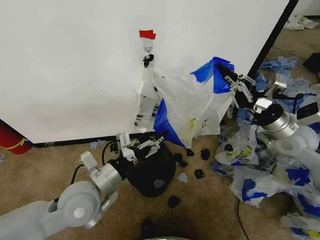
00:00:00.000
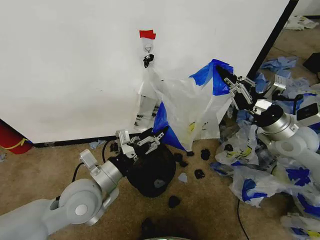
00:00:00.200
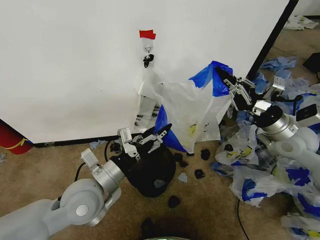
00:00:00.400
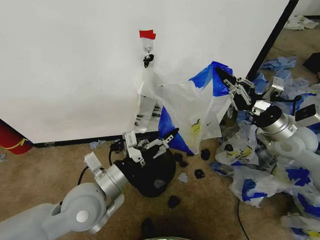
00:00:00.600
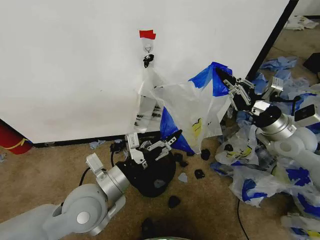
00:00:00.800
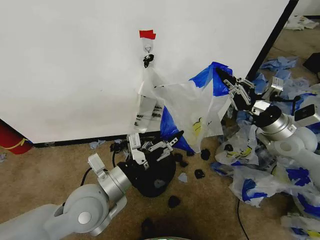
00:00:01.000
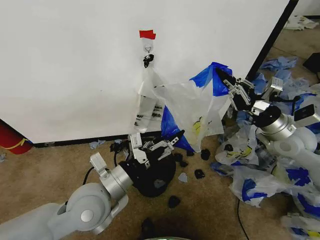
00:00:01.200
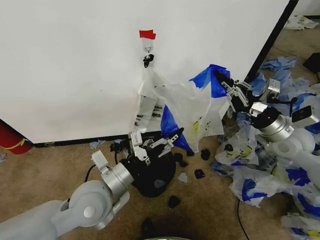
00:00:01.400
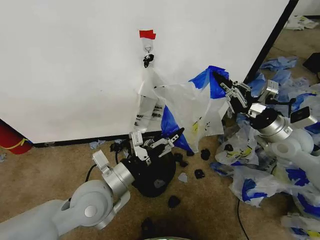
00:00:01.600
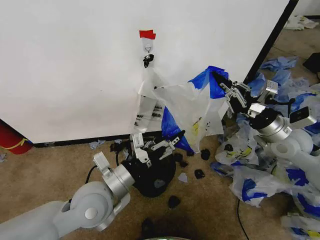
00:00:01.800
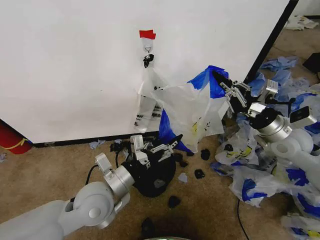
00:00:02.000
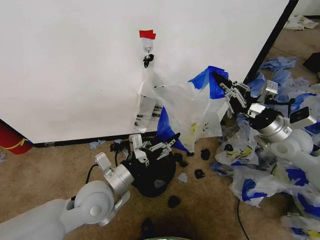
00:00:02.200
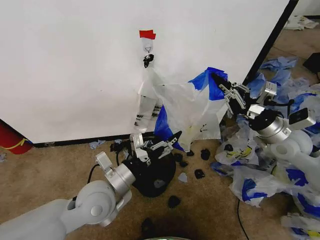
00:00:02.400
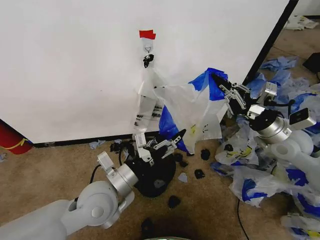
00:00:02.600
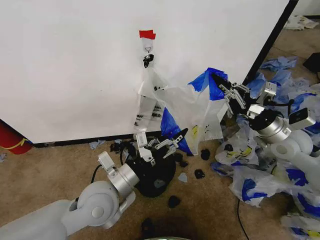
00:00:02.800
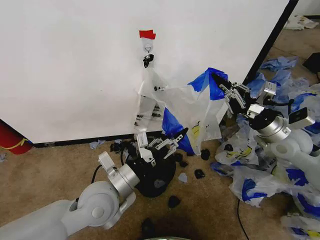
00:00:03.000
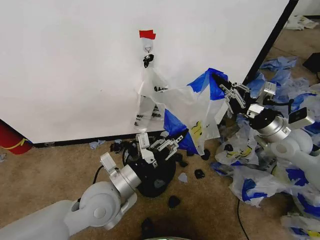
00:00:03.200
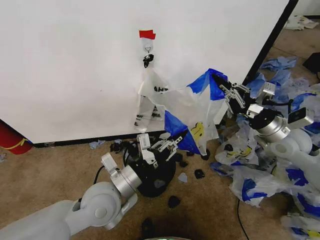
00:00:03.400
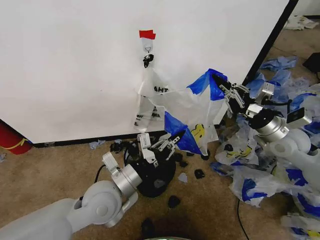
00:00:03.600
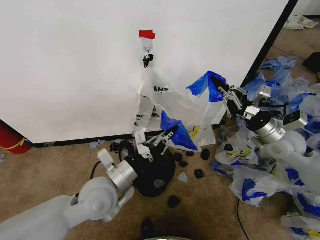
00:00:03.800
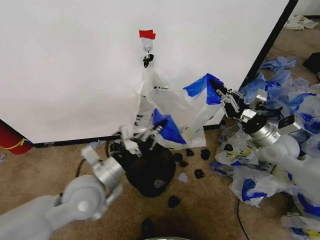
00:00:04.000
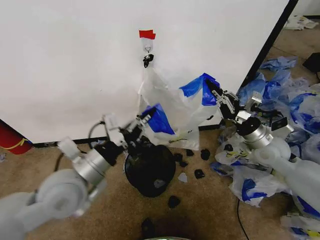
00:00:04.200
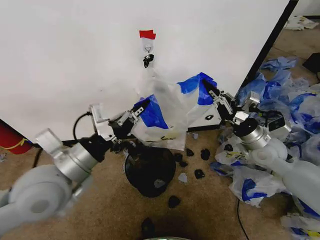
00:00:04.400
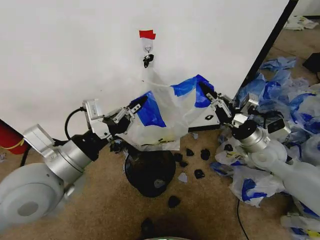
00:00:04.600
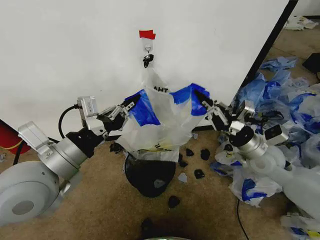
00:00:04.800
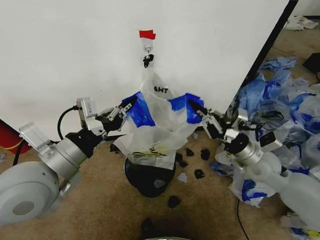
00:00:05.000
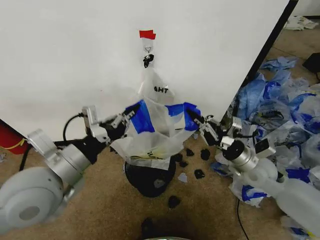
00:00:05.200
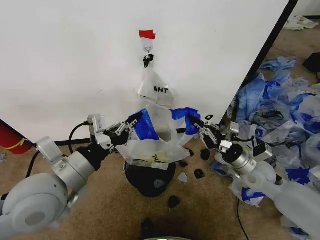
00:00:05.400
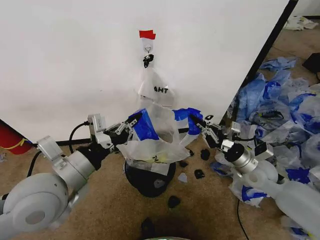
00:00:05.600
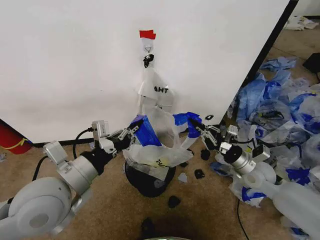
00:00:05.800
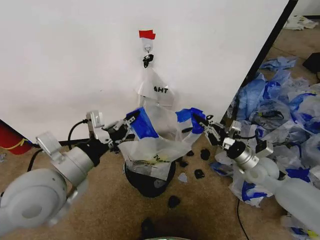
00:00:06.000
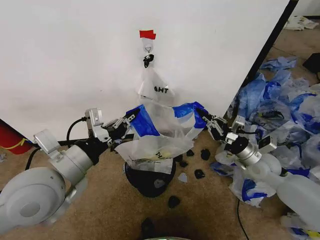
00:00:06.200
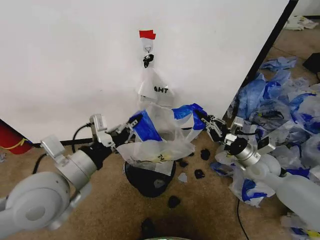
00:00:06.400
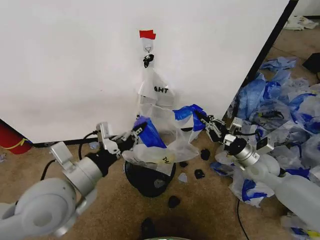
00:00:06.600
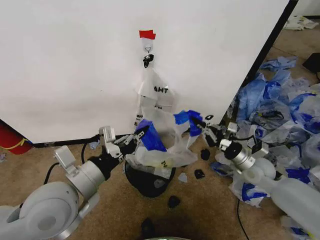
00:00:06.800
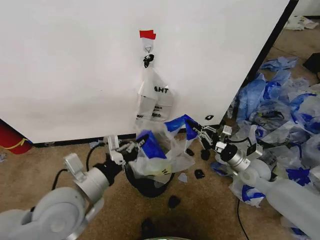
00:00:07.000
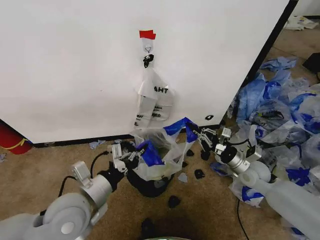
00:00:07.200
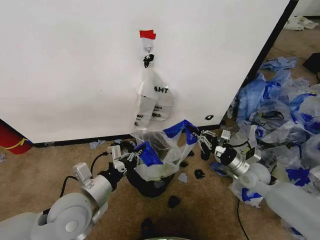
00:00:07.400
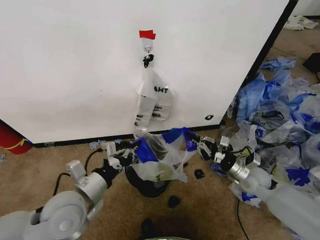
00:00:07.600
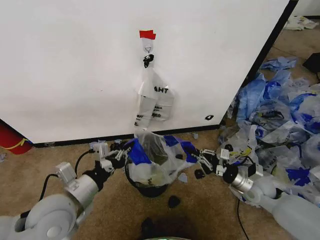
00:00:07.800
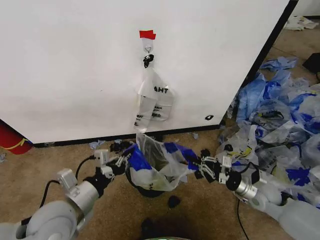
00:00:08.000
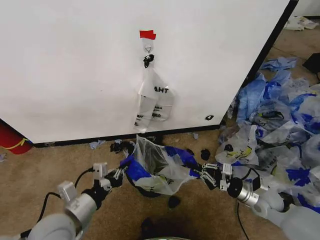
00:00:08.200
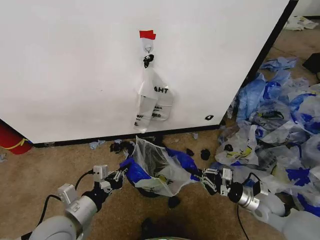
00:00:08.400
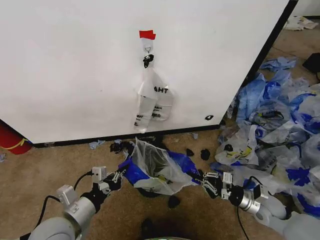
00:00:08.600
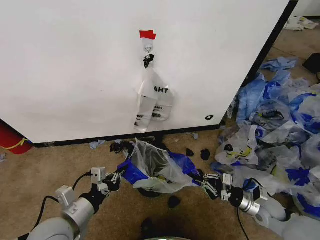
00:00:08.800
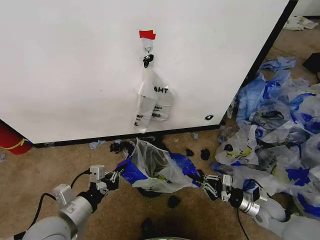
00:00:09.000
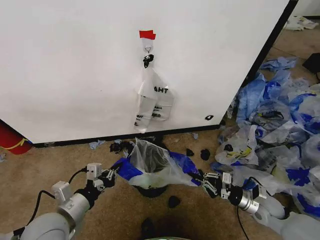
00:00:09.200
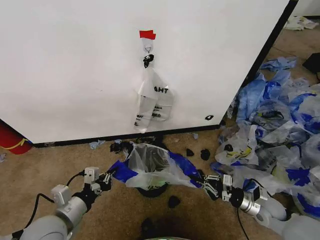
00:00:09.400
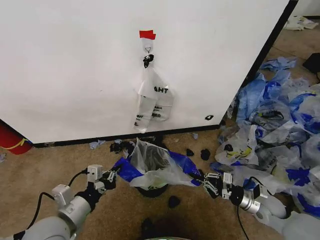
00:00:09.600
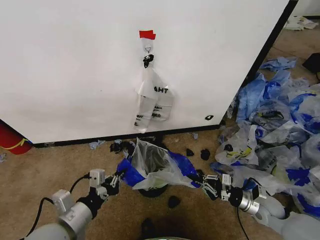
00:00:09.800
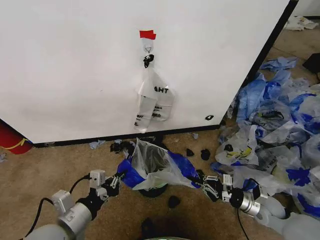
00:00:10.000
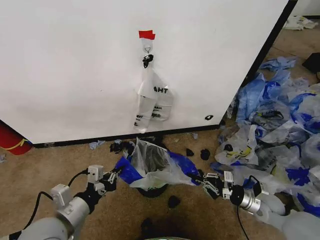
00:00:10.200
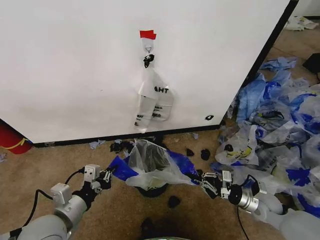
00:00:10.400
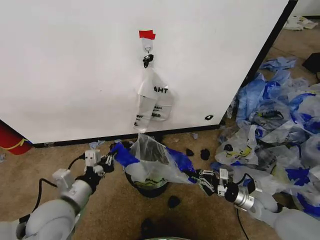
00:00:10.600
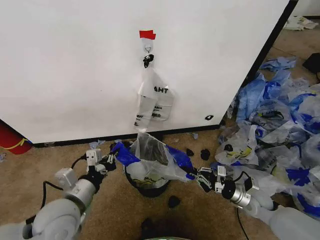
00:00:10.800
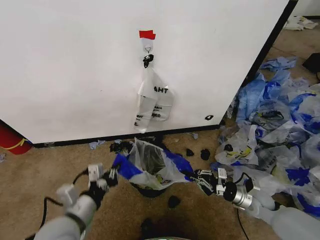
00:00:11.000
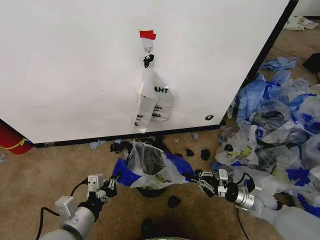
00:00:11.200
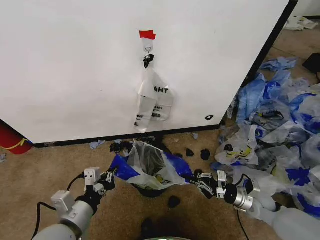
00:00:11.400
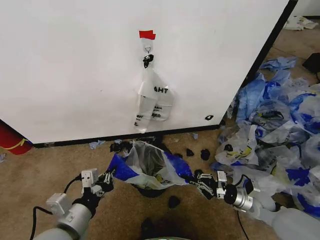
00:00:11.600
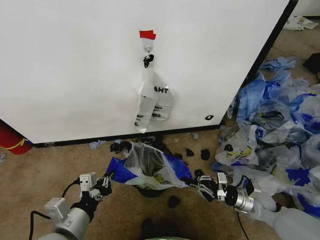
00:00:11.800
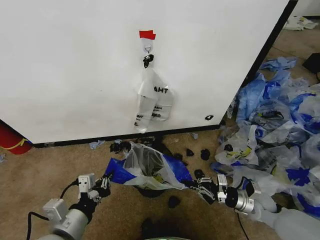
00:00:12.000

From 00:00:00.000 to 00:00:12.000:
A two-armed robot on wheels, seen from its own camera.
Task of the whole recording: Pick up the garbage bag from the wall and place it over the trash bin.
From 00:00:00.000 to 00:00:03.000: The grippers stay close to where they were, moving slightly.
From 00:00:03.000 to 00:00:04.400: The left gripper moves upward and to the left, approximately 10 cm, and closes. The right gripper shifts by approximately 5 cm.
From 00:00:04.400 to 00:00:06.000: The right gripper moves downward, roughly 10 cm.
From 00:00:06.000 to 00:00:07.600: The right gripper moves downward, roughly 5 cm. Meanwhile the left gripper shifts approximately 10 cm downward.
From 00:00:07.600 to 00:00:09.000: The right gripper heads backward and downward, covering about 10 cm. The left gripper changes place by roughly 5 cm.
From 00:00:09.000 to 00:00:12.000: There are only small adjustments of the grippers.

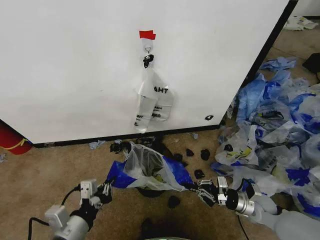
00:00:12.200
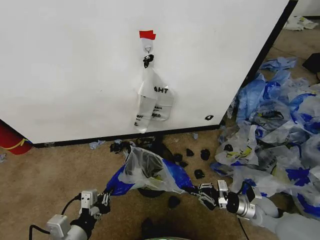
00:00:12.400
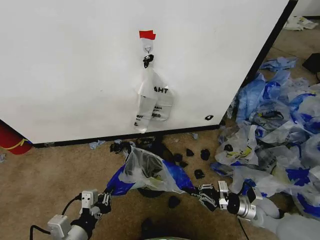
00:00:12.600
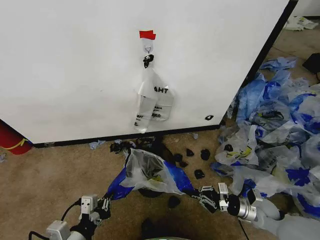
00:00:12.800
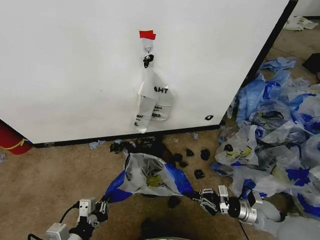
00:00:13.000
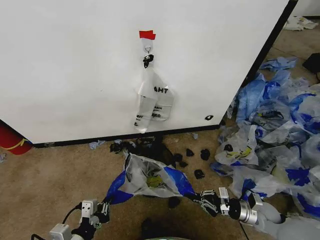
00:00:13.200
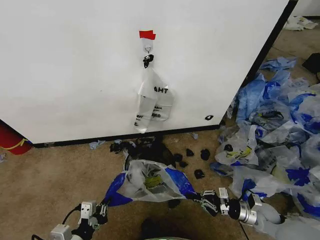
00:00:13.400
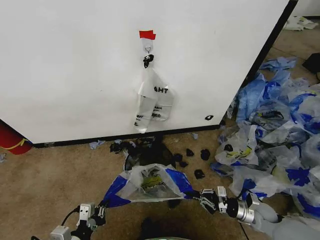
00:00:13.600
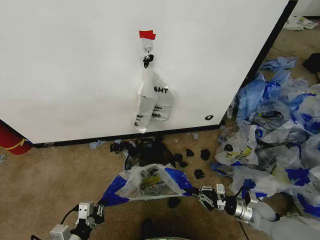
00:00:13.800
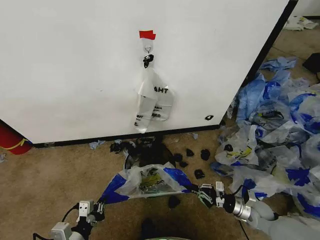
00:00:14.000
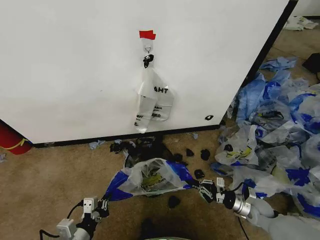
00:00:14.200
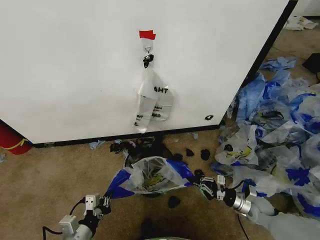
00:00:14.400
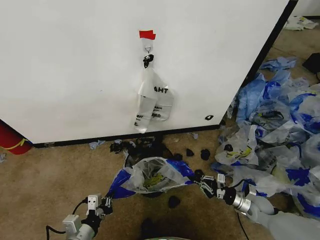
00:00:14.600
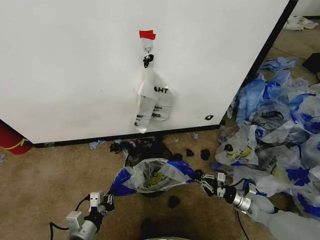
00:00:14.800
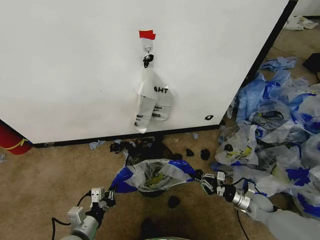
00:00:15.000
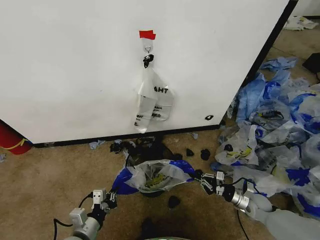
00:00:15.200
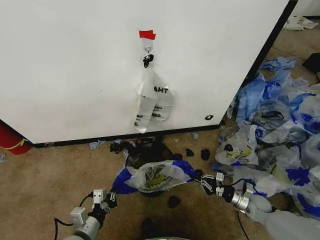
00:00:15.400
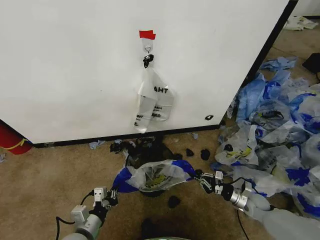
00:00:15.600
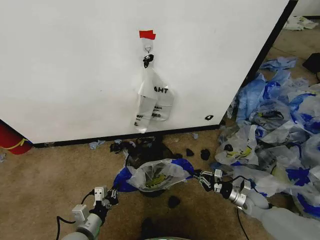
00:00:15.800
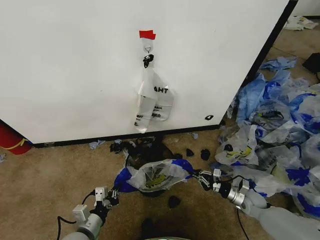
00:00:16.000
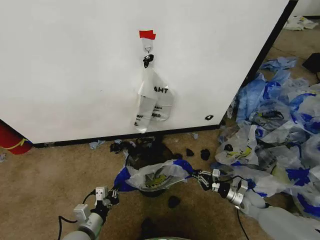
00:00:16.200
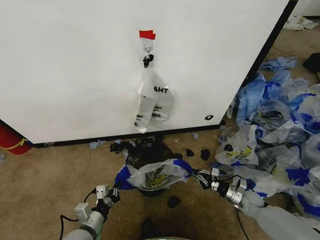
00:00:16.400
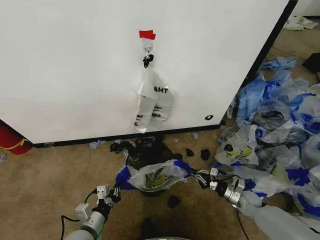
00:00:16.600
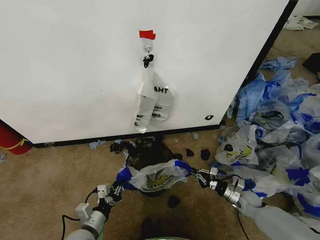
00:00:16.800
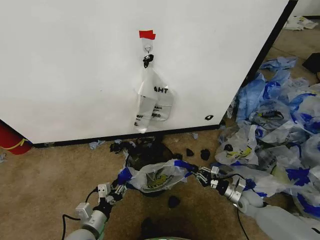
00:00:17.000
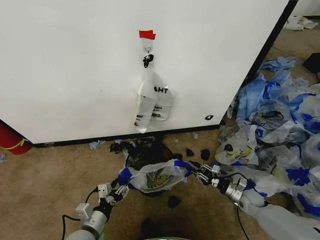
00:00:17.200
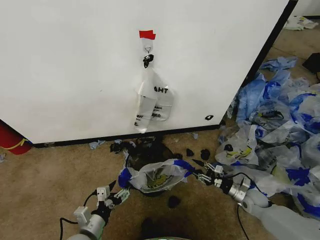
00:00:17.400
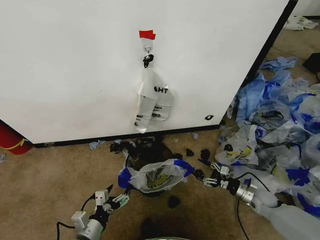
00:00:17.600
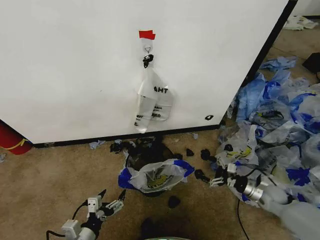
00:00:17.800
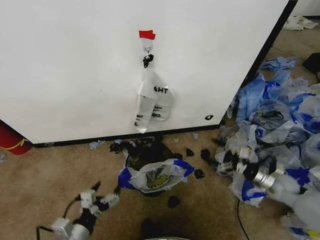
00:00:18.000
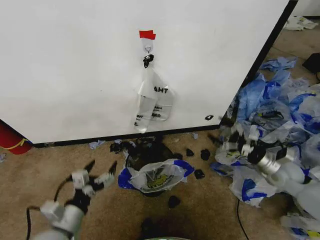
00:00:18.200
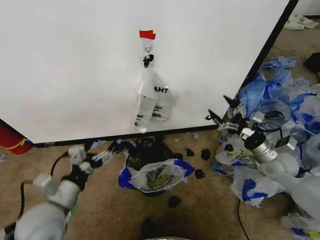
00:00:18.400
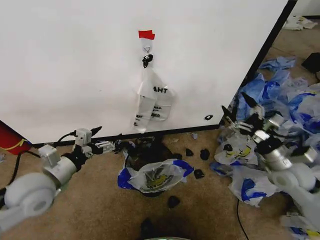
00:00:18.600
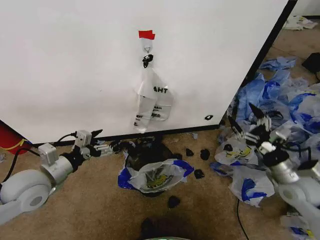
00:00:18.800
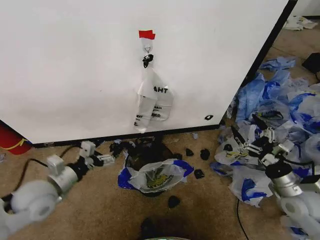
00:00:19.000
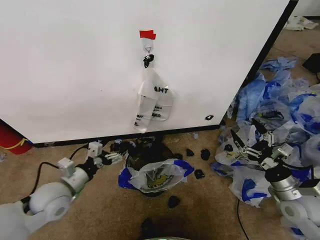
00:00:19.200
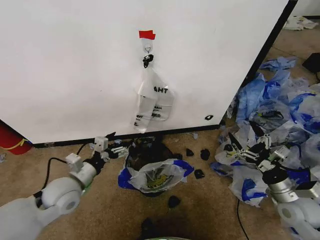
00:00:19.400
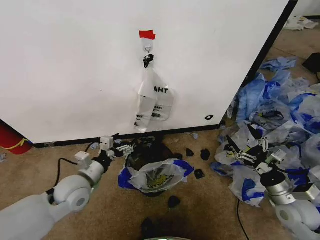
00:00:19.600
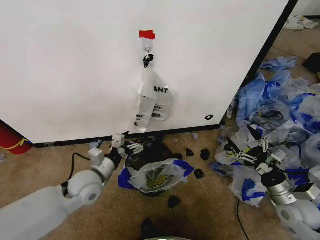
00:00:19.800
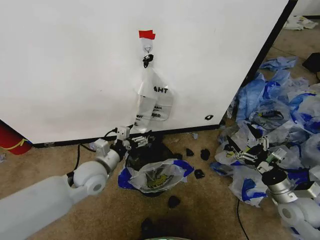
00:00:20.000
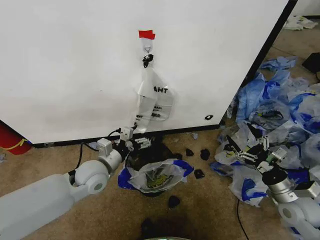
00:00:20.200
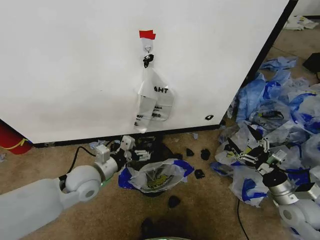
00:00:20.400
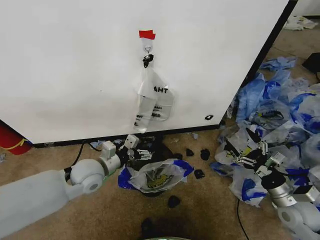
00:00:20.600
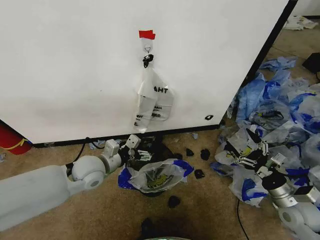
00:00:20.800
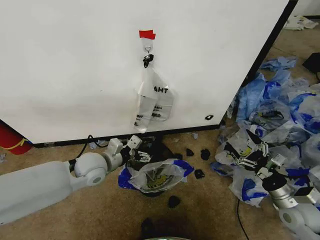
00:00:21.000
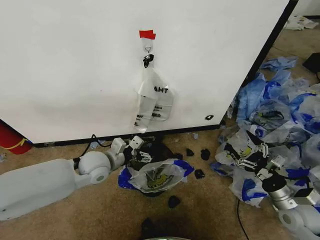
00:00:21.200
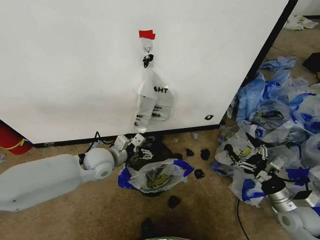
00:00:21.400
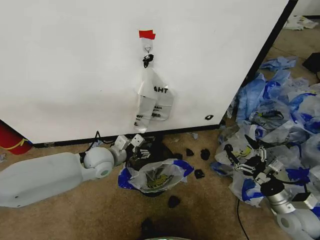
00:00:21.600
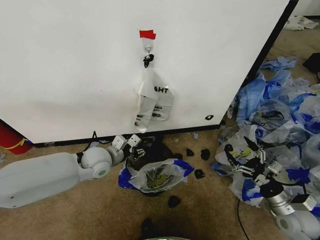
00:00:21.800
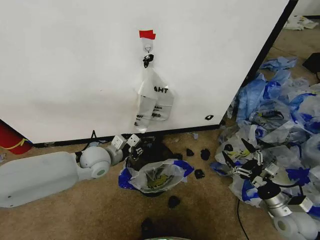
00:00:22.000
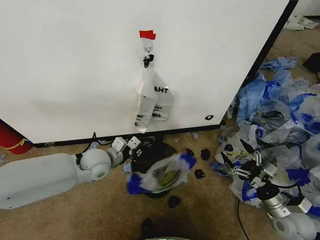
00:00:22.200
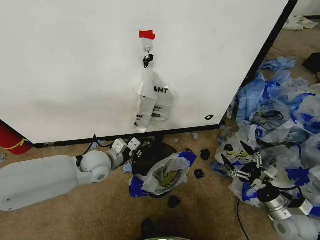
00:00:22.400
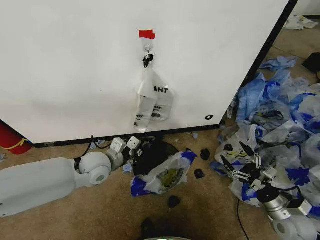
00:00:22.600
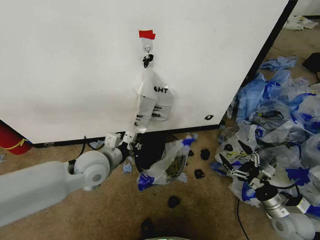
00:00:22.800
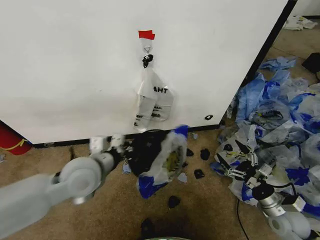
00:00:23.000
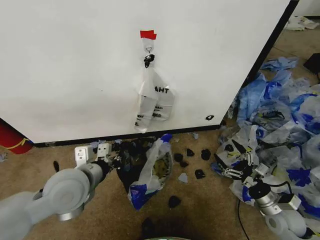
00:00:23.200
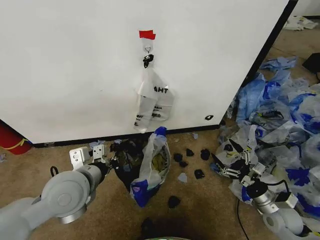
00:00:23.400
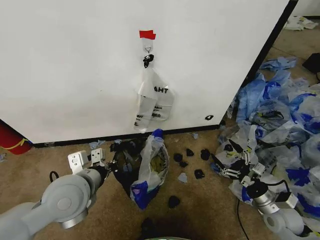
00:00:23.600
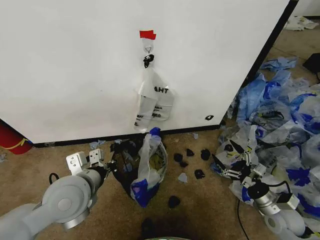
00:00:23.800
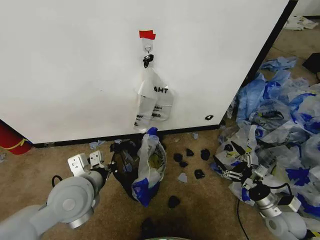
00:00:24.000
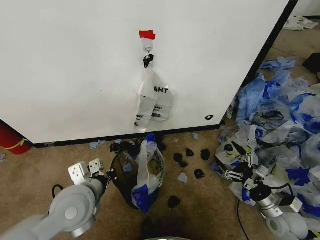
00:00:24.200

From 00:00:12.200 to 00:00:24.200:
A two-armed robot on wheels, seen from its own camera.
Task of the whole recording: Pick up the garbage bag from the wall and place it over the trash bin.
From 00:00:12.200 to 00:00:13.800: The left gripper moves downward, approximately 10 cm; the right gripper goes some 5 cm downward.
From 00:00:13.800 to 00:00:15.200: The left gripper shifts by roughly 5 cm.
From 00:00:15.200 to 00:00:16.600: The grippers move only a little.
From 00:00:16.600 to 00:00:18.200: The right gripper shifts about 20 cm upward, and opens; the left gripper moves upward, approximately 10 cm, and opens.
From 00:00:18.200 to 00:00:19.800: The left gripper heads forward, covering about 15 cm; the right gripper travels backward by approximately 10 cm.
From 00:00:19.800 to 00:00:21.200: The left gripper travels forward by approximately 5 cm.
From 00:00:21.200 to 00:00:22.600: The left gripper closes up.
From 00:00:22.600 to 00:00:24.200: The left gripper travels backward by some 10 cm.
